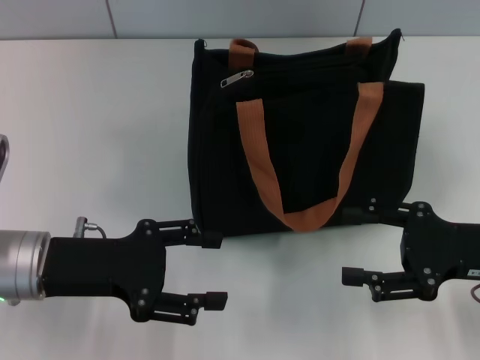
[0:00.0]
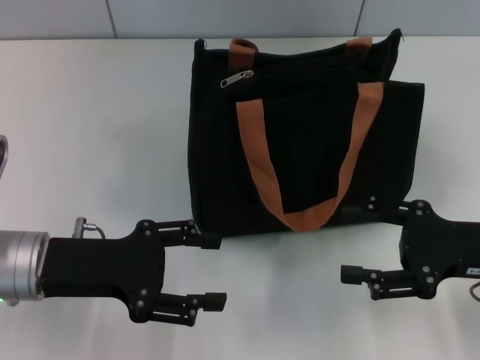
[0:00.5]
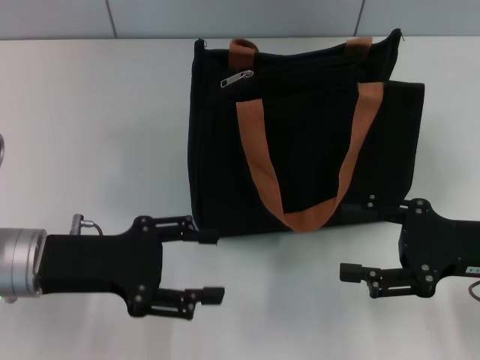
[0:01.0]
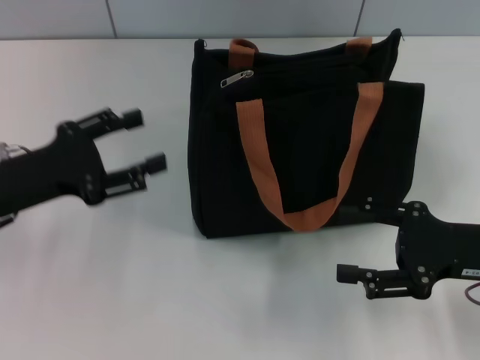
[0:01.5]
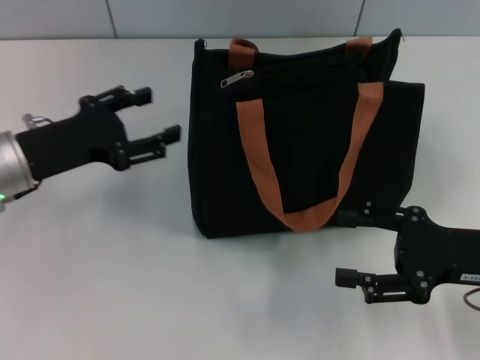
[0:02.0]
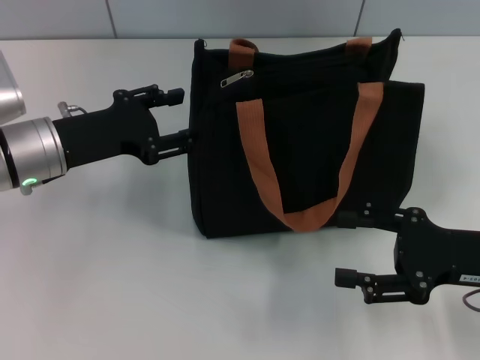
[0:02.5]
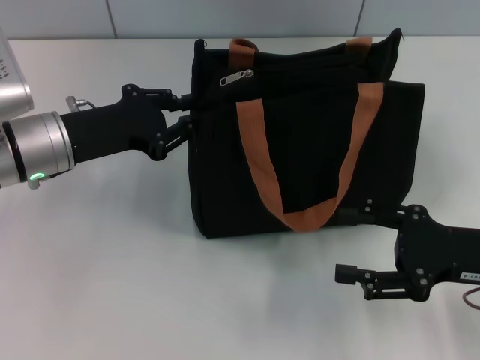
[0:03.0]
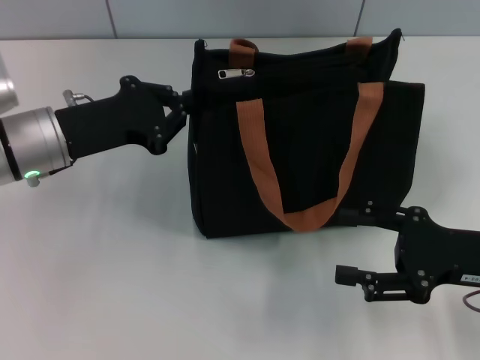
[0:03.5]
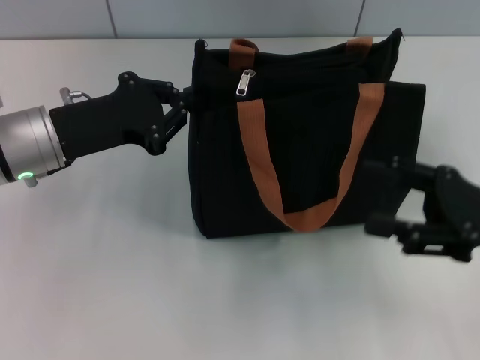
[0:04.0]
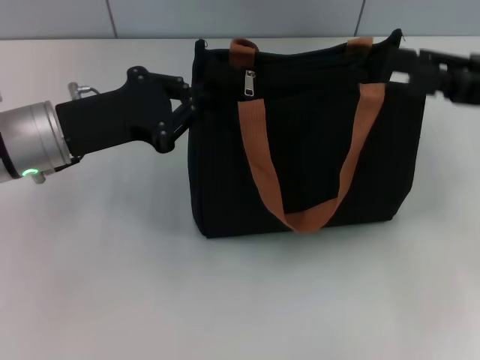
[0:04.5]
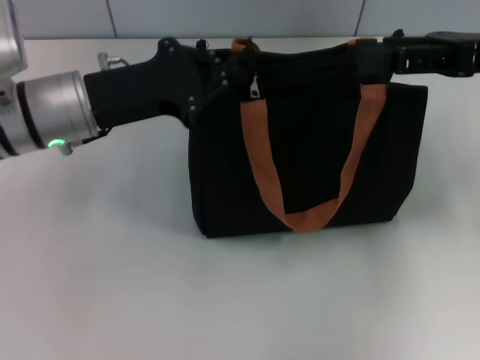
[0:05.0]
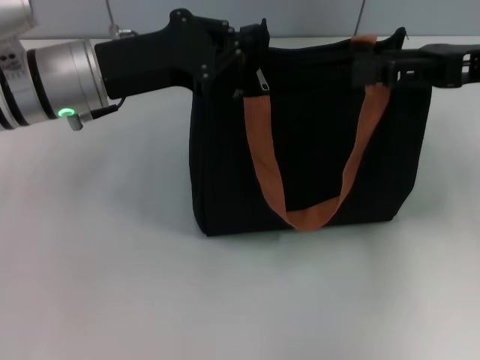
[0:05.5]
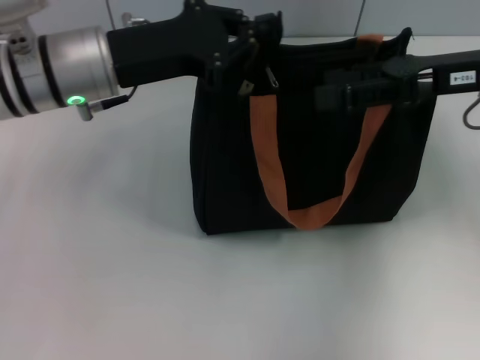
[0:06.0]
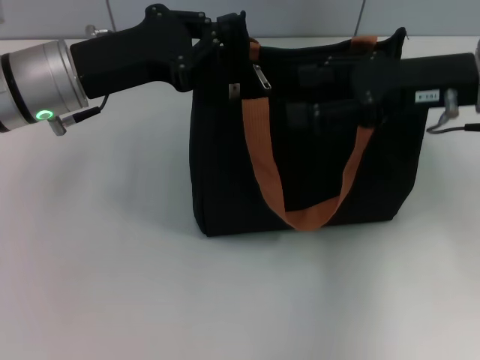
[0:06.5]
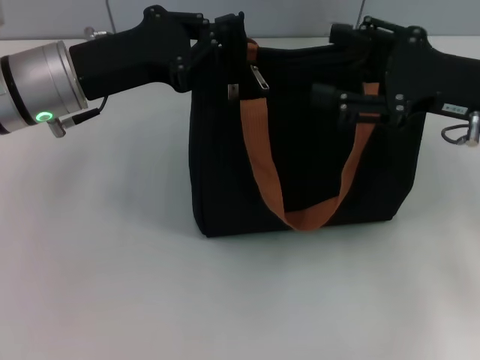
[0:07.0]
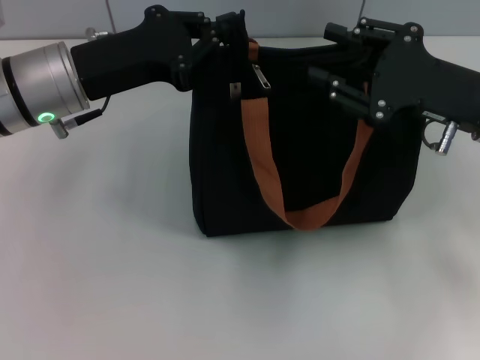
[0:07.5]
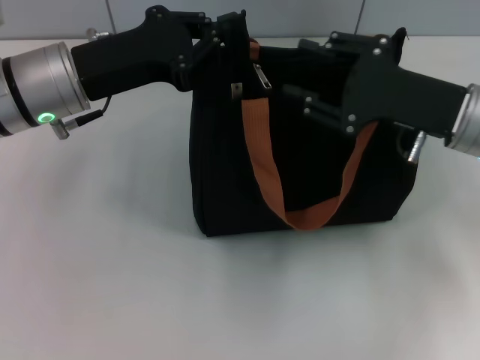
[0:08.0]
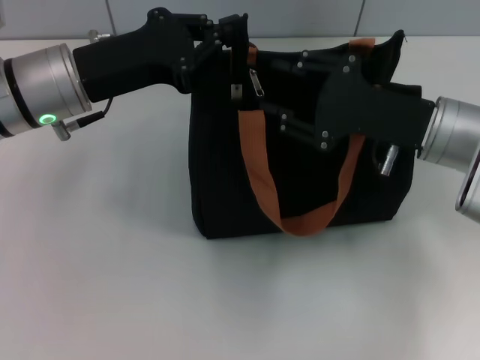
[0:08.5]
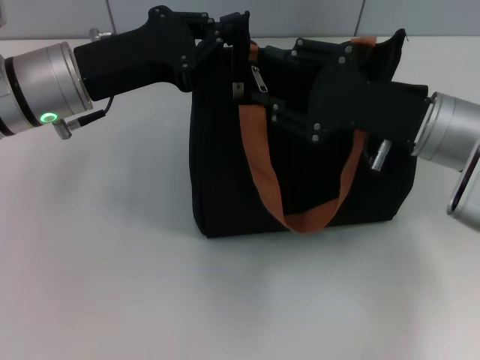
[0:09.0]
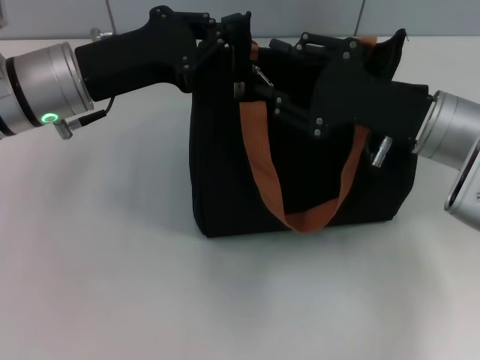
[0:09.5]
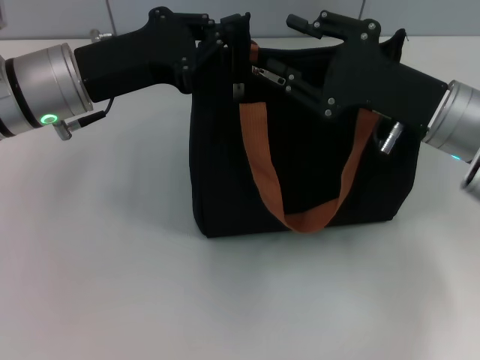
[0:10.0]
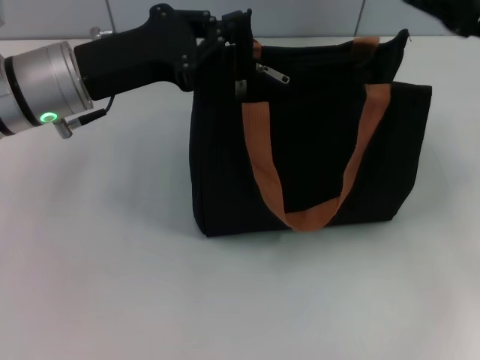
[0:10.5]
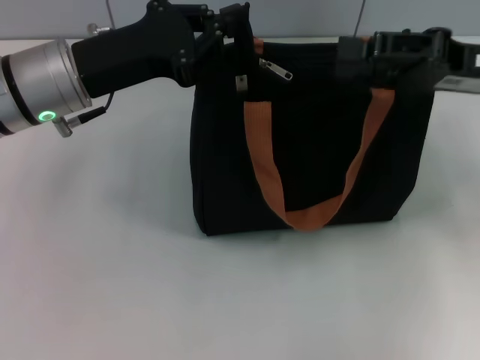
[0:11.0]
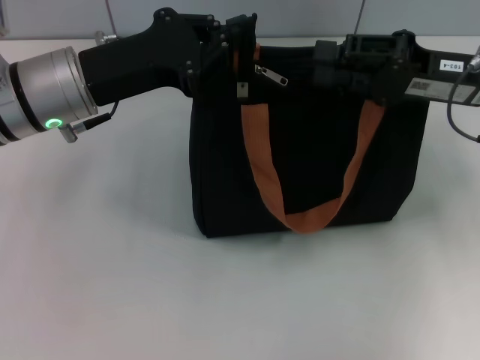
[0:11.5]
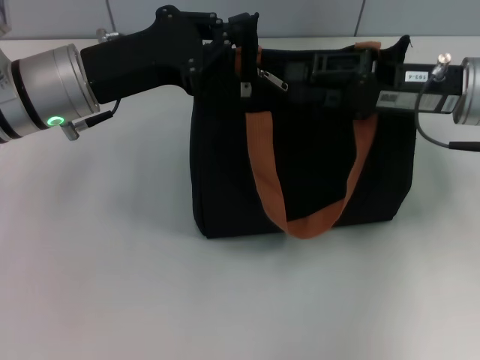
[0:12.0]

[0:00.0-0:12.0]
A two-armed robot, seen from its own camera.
0:00.0 to 0:02.0: The left gripper goes some 5 cm forward.
0:02.0 to 0:04.0: The left gripper closes its fingers.
0:04.0 to 0:06.0: The left gripper heads upward and to the right, covering some 5 cm; the right gripper travels forward and upward by approximately 15 cm.
0:06.0 to 0:08.0: The right gripper heads downward, covering about 5 cm, and closes up.
0:08.0 to 0:10.0: The grippers move only a little.

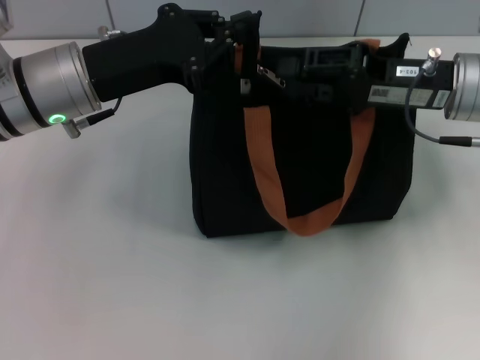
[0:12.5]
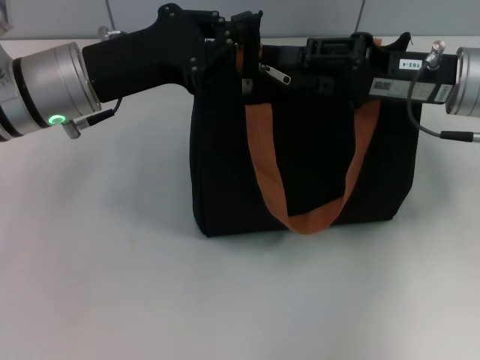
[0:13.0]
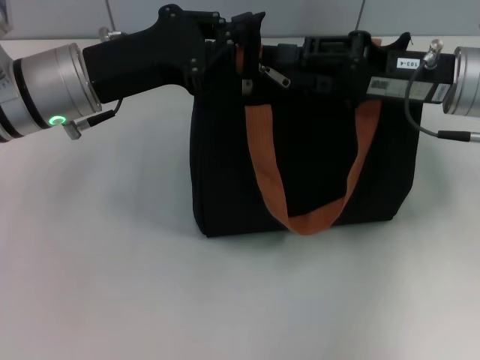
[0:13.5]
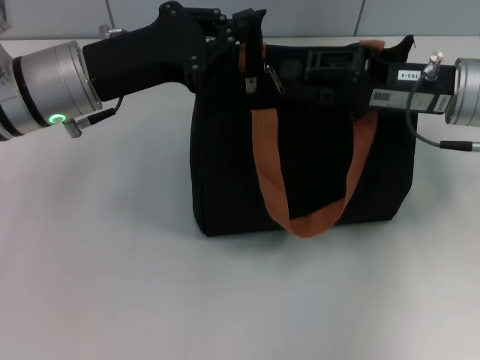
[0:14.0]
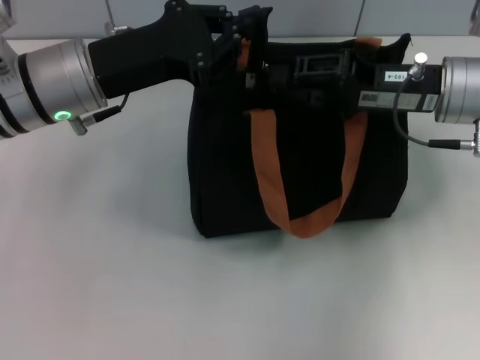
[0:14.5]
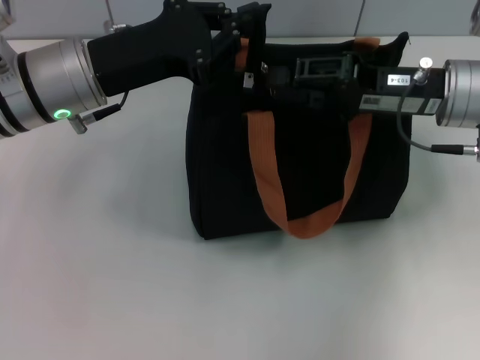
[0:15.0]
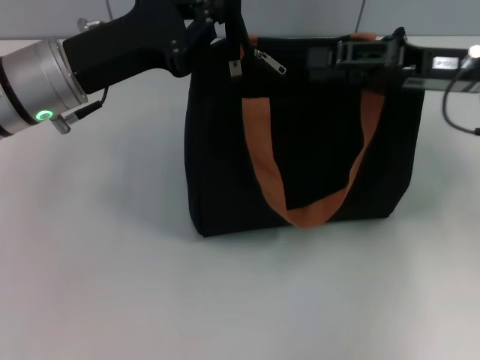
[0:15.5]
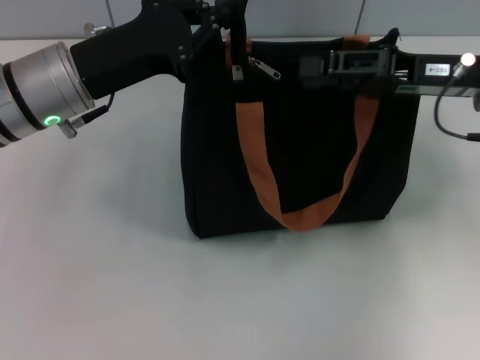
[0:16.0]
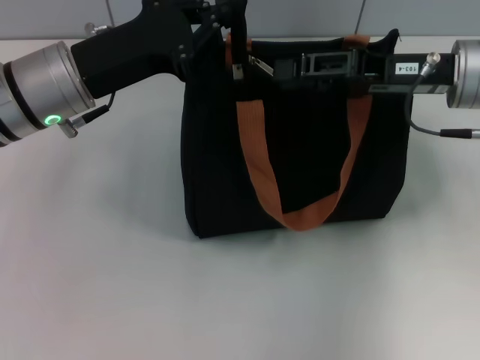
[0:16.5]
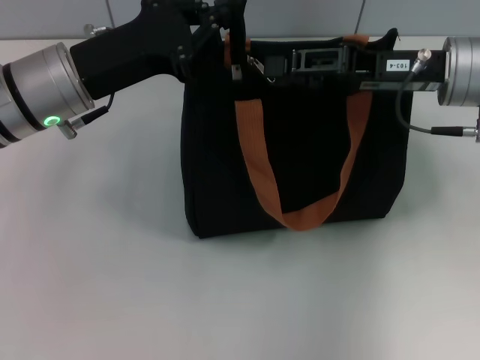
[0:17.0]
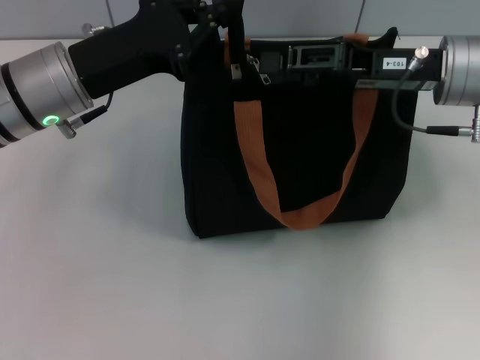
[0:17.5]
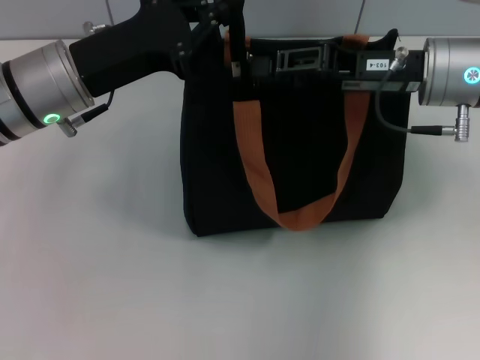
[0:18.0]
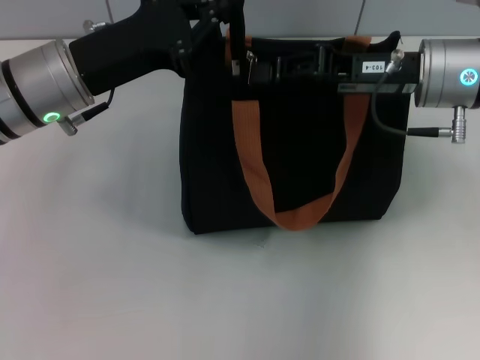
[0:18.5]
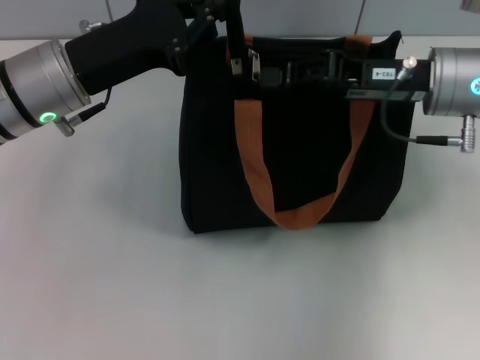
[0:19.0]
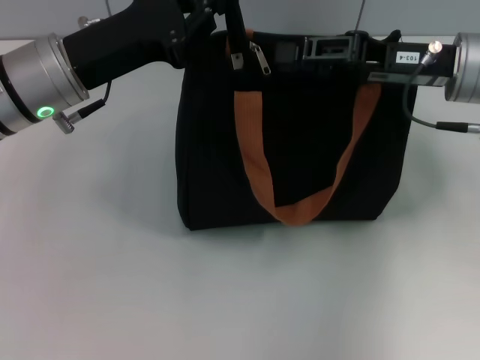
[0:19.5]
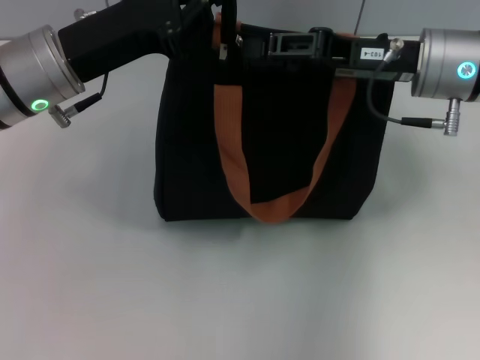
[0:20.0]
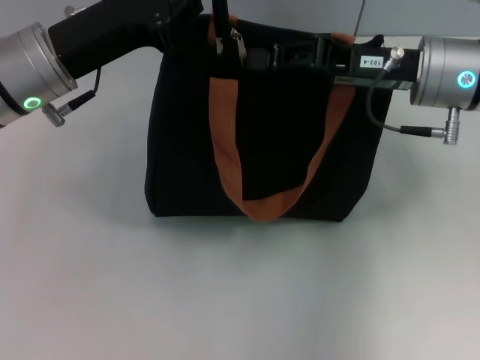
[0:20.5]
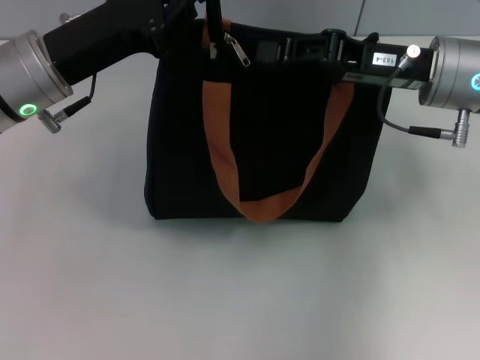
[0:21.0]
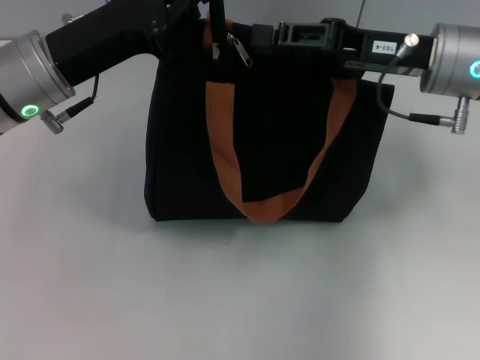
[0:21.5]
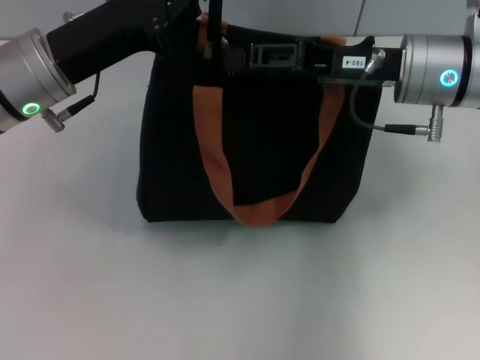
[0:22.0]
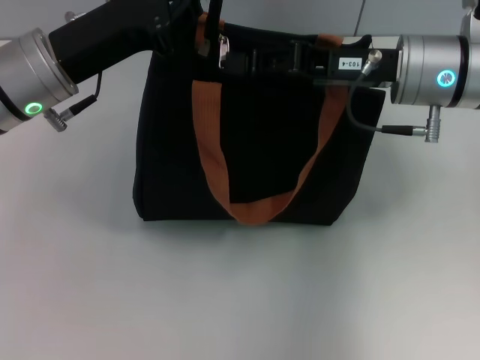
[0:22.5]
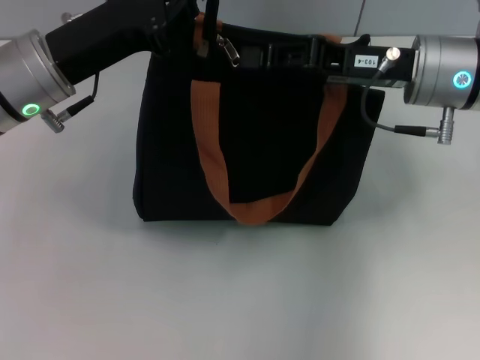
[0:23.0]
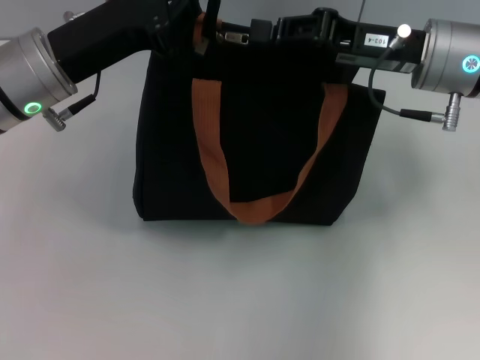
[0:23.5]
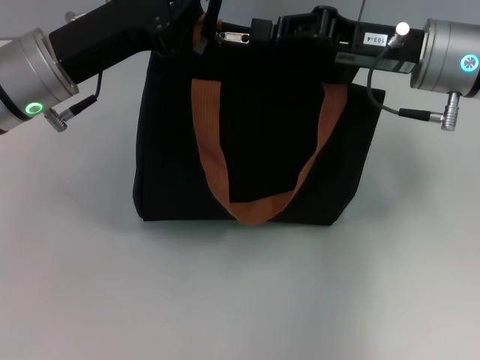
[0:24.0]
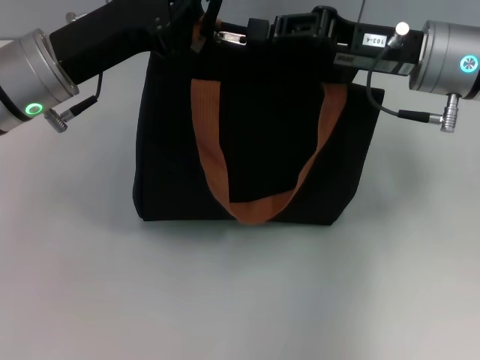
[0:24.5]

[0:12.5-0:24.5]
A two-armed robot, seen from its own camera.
0:12.5 to 0:14.5: Both grippers stay about where they are.
0:14.5 to 0:18.5: The grippers make only small movements.
0:20.5 to 0:24.5: The grippers move only a little.

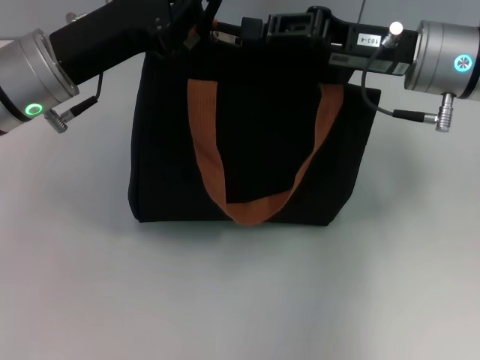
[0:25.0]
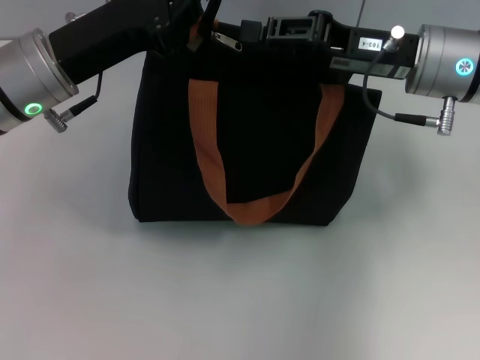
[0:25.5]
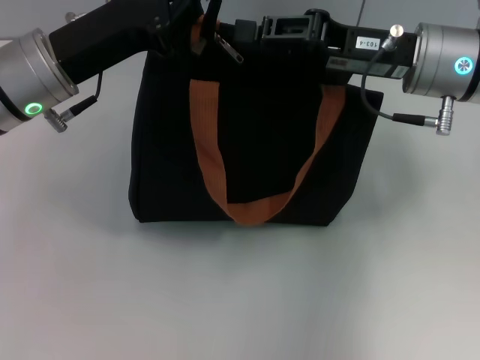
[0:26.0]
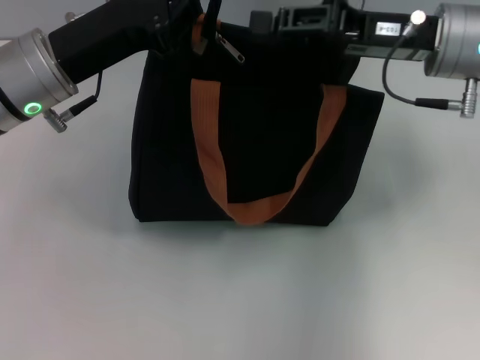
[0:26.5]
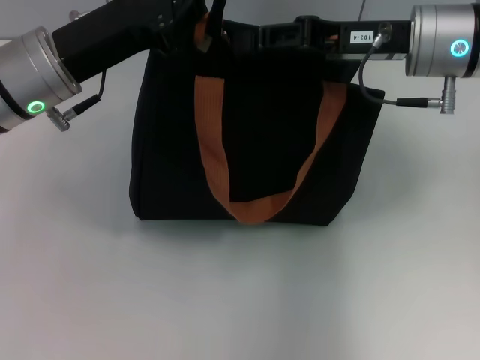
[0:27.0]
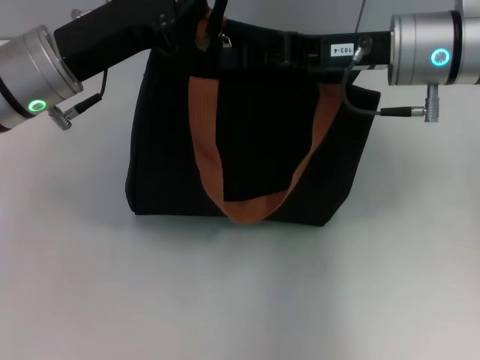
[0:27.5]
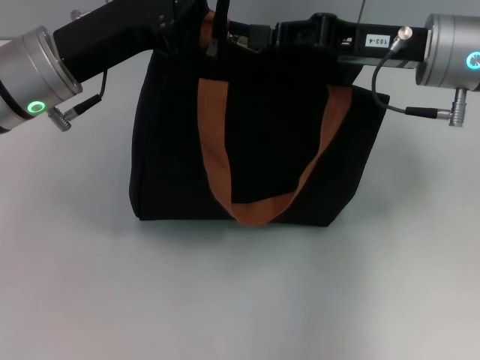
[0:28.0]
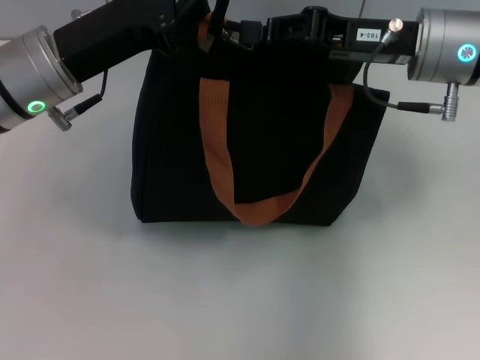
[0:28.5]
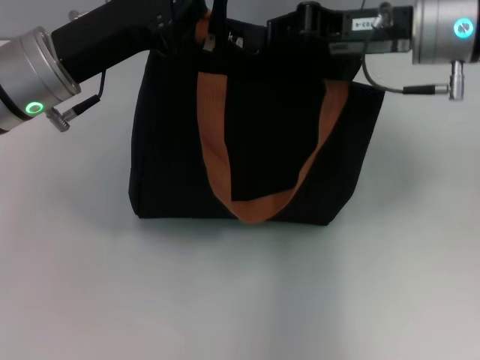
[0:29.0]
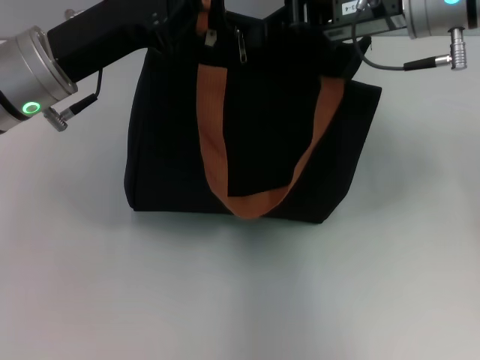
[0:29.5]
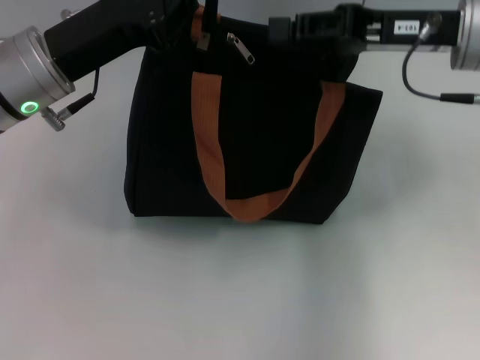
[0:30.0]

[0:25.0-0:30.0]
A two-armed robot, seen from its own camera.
0:25.0 to 0:27.5: There are only small adjustments of the grippers.
0:27.5 to 0:30.0: There are only small adjustments of the grippers.
